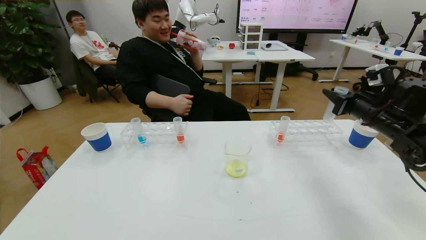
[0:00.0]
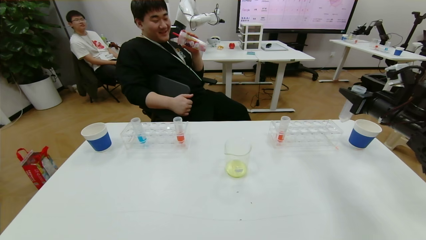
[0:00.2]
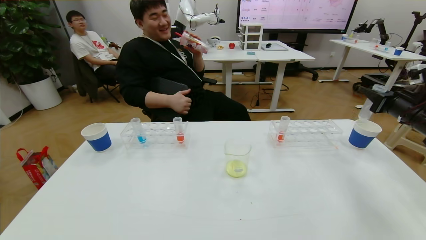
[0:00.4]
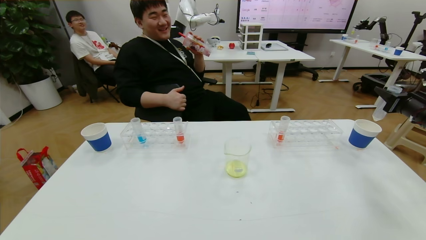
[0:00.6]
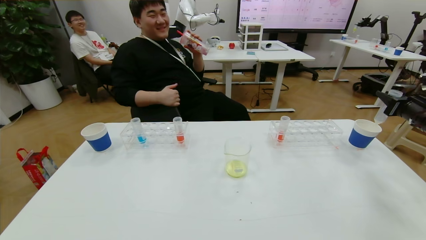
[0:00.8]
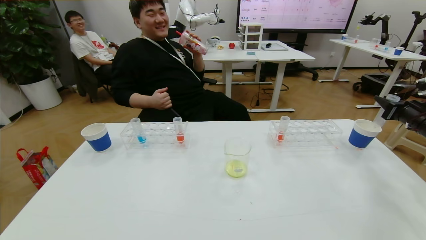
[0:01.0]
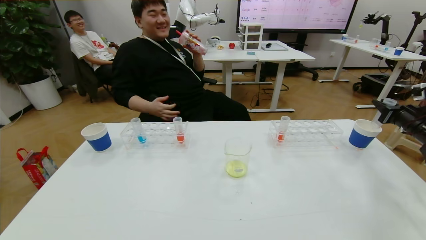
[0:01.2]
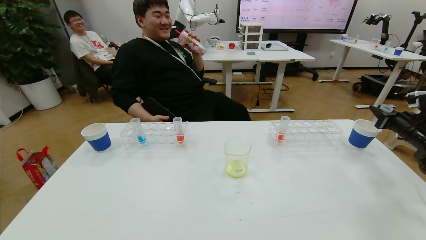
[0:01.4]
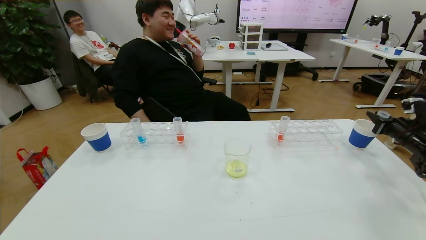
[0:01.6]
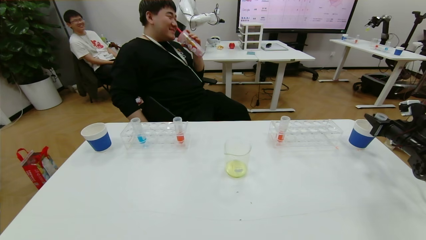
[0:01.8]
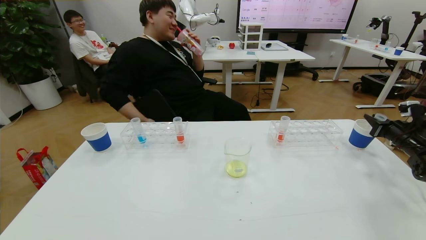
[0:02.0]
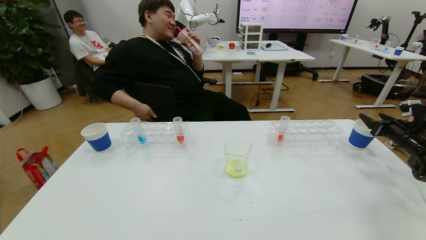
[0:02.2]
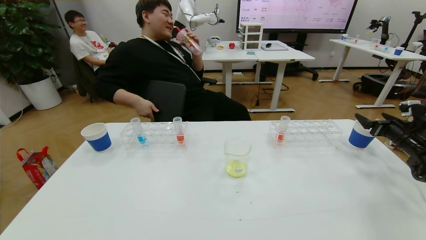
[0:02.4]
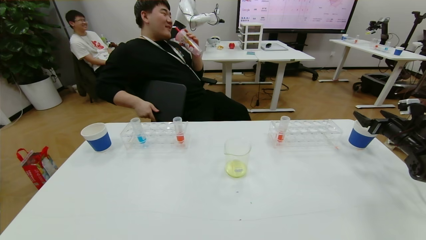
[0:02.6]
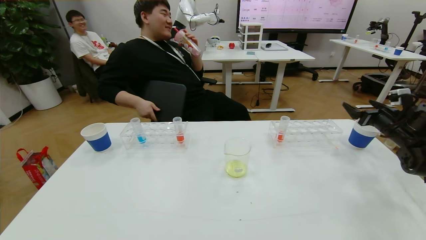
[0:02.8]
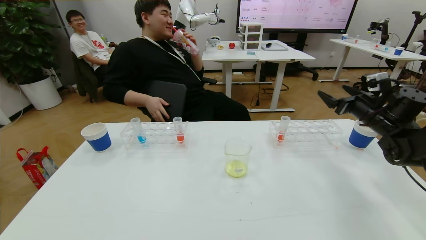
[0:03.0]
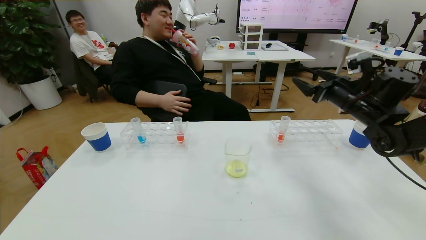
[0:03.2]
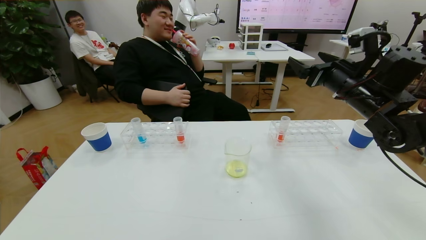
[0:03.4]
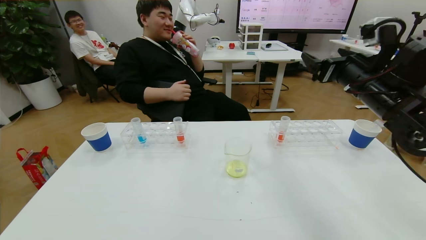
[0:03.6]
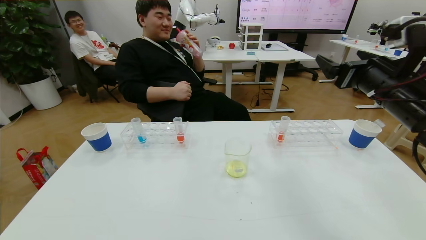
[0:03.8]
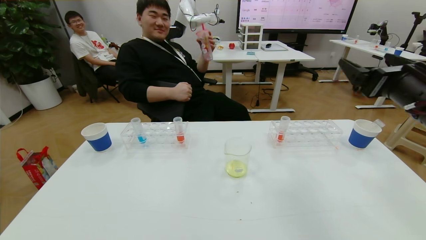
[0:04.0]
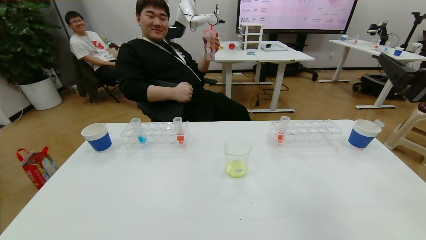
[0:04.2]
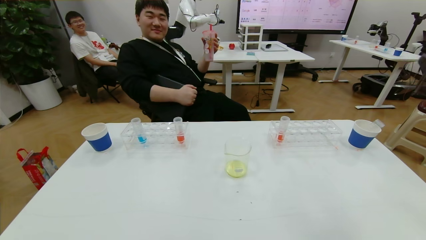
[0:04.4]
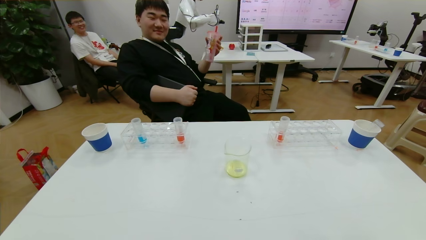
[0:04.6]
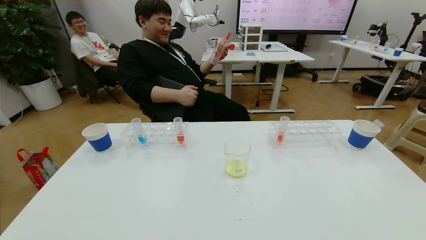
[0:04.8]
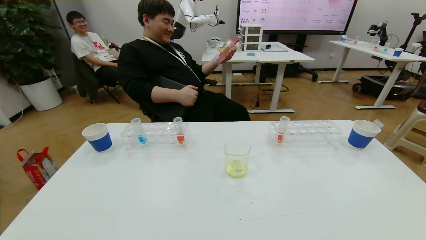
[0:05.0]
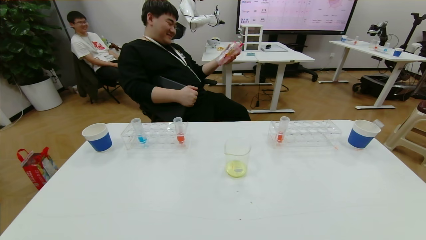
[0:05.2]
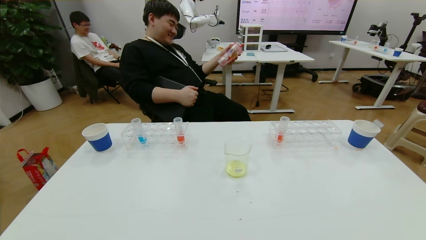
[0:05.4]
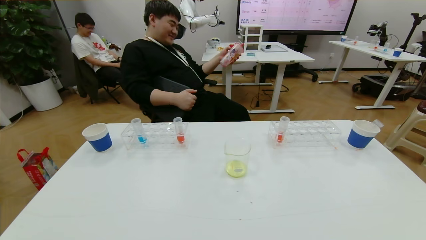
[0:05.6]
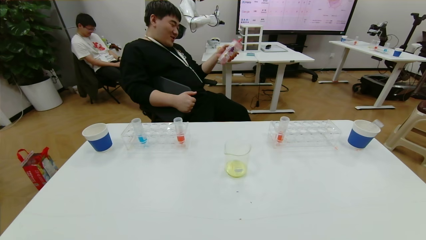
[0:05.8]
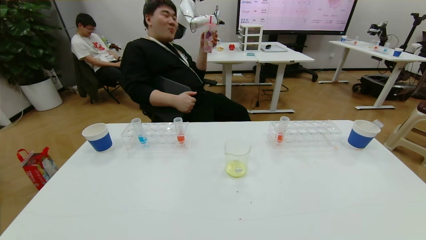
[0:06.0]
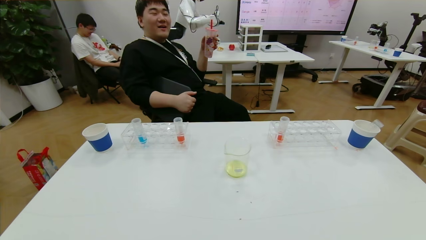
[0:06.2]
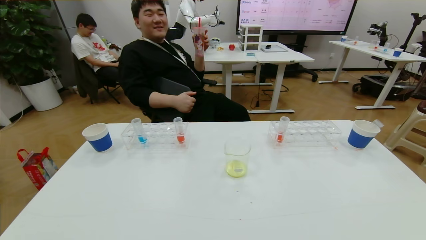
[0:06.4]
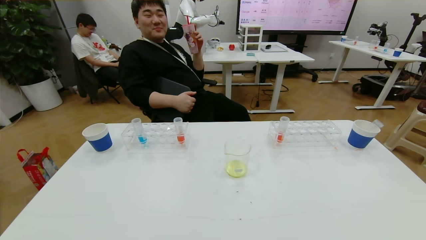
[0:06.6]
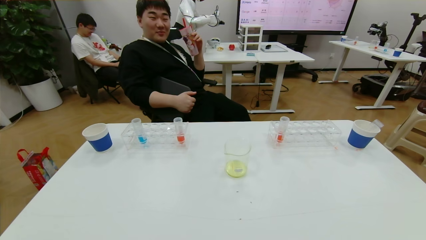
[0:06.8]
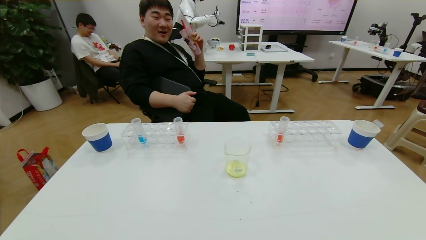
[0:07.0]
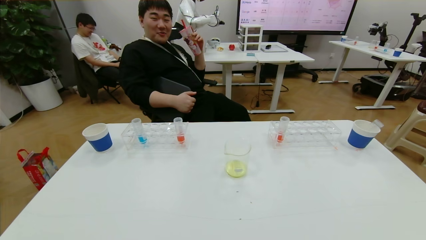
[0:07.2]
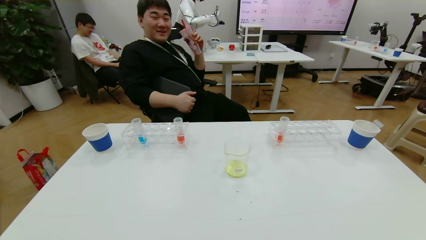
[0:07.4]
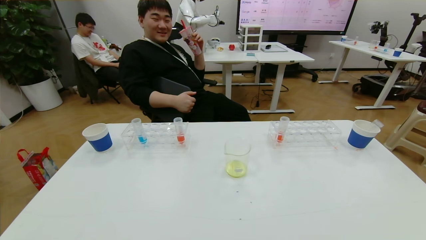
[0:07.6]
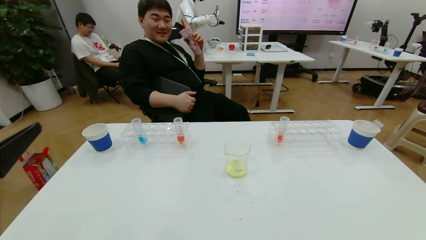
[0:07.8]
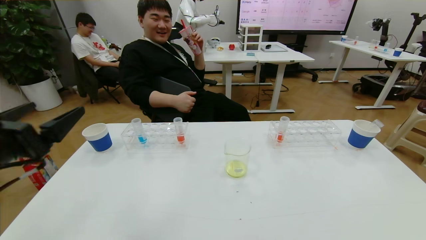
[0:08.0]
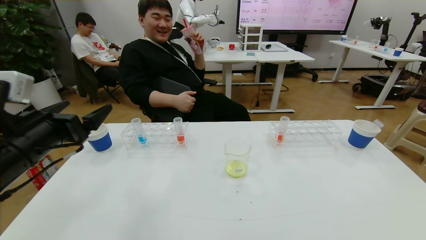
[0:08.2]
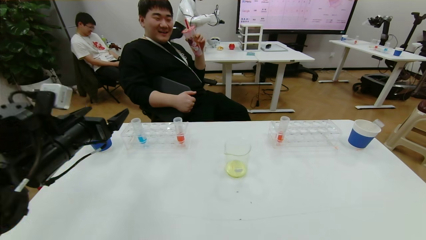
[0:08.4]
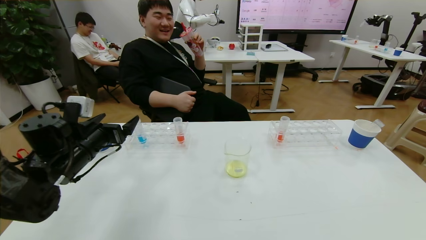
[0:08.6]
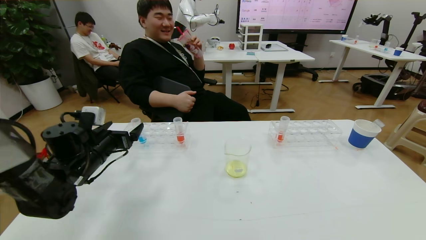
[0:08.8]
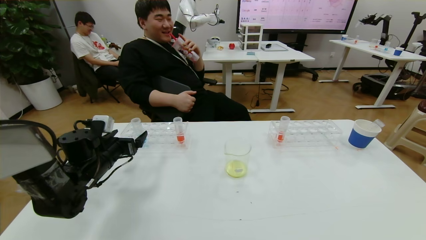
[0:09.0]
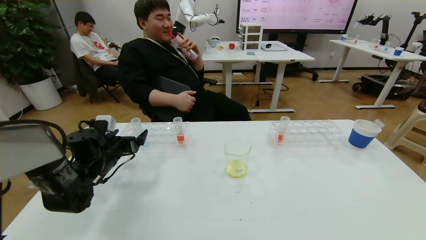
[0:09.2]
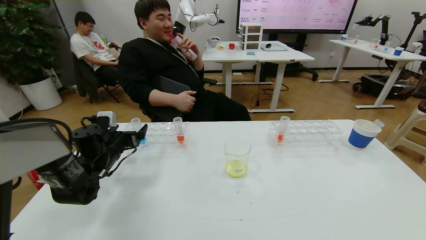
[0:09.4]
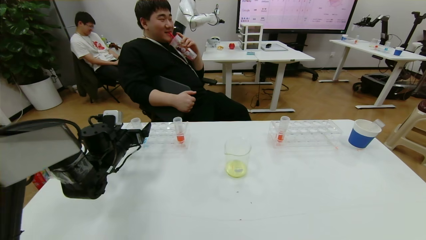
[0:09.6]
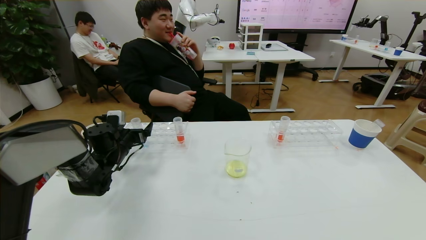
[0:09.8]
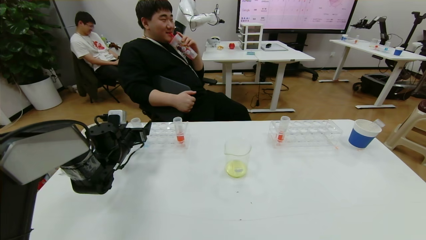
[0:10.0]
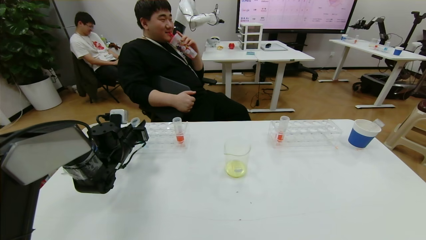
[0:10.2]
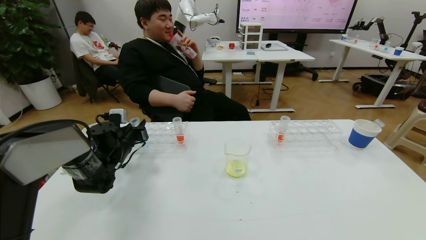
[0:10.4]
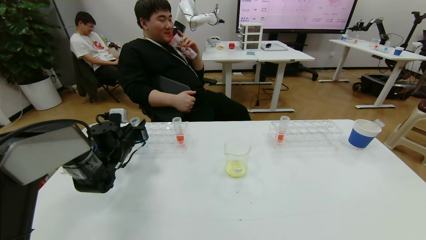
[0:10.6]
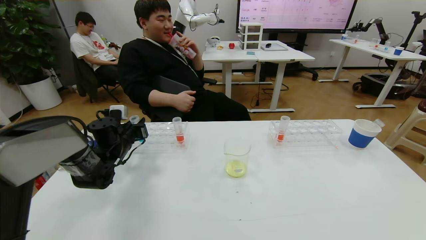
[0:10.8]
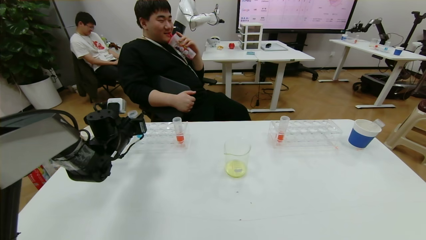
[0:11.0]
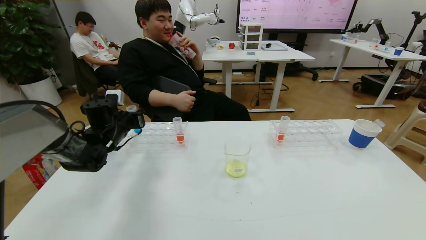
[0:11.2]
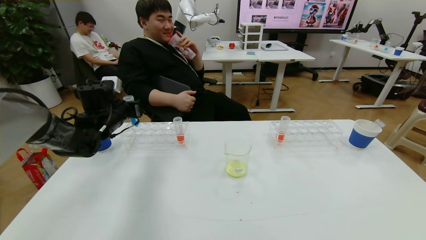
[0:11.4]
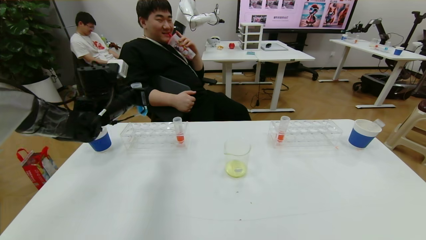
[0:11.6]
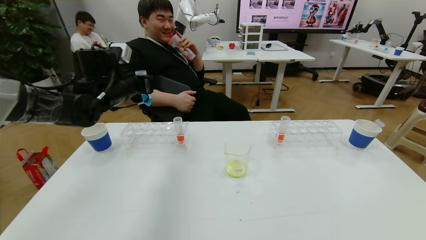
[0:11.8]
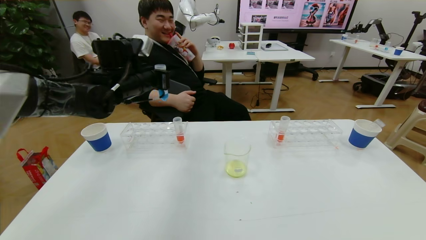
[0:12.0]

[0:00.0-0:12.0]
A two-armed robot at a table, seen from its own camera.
Task of the whole recording: pick up the test tube with yellow pigment and the test tube with blue pigment by grippers and pour them into the beaker.
Step, 0:00.0 to 0:05.2: Pour the yellow reagent into the graduated cylinder and place the test tube into the paper cup.
0:00.0 to 0:01.6: The right gripper shifts some 20 cm to the right and downward.
0:01.6 to 0:03.0: The right gripper is displaced to the left and upward by approximately 15 cm, and opens.
0:03.0 to 0:04.4: The right gripper moves backward and upward, some 30 cm.
0:04.4 to 0:06.0: The right gripper travels downward and backward by some 25 cm.
0:06.0 to 0:07.6: The left gripper goes approximately 15 cm upward.
0:07.6 to 0:09.0: The left gripper goes some 35 cm forward and downward.
0:09.0 to 0:10.4: The left gripper shifts about 5 cm forward, and closes its fingers.
0:10.4 to 0:12.0: The left gripper travels upward and to the right by approximately 20 cm.

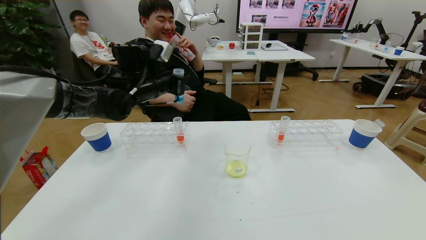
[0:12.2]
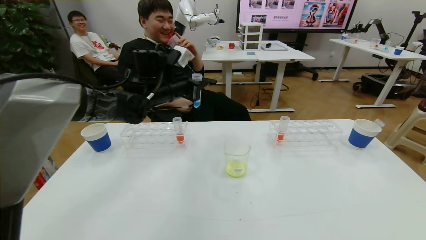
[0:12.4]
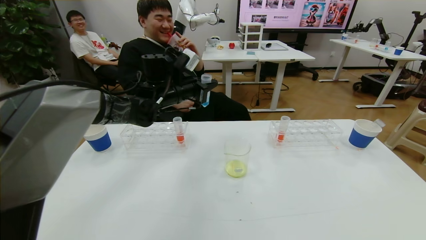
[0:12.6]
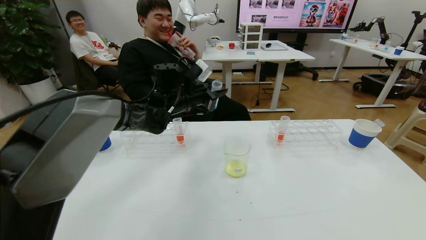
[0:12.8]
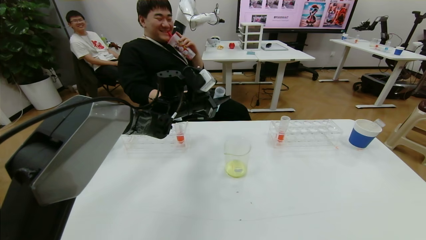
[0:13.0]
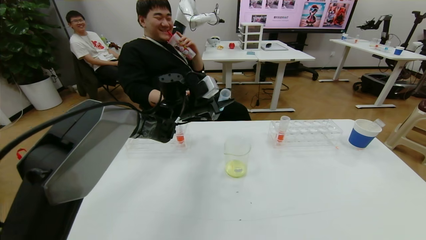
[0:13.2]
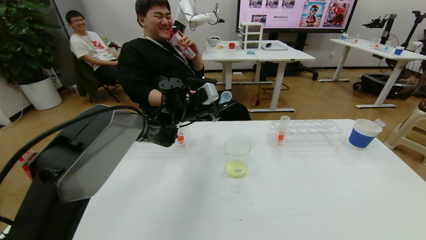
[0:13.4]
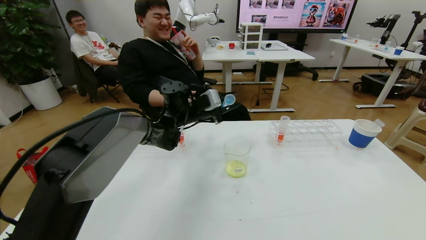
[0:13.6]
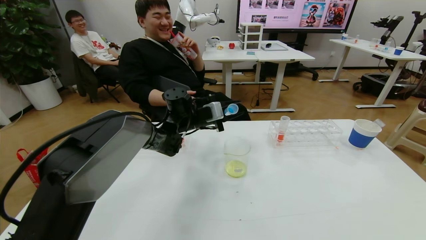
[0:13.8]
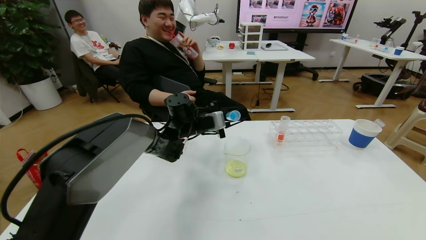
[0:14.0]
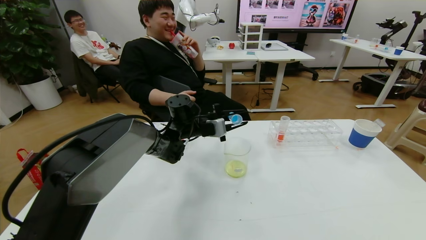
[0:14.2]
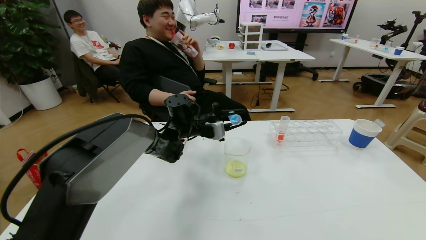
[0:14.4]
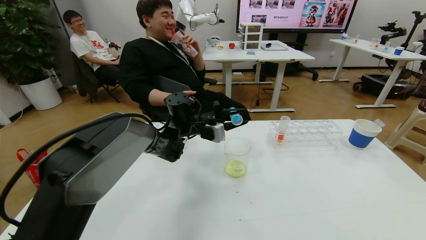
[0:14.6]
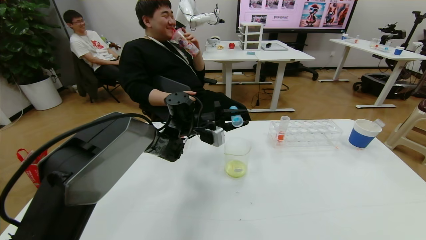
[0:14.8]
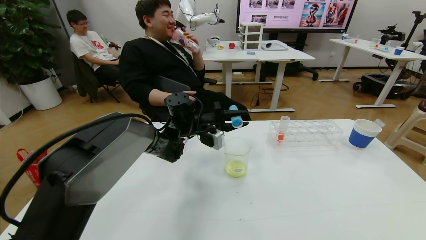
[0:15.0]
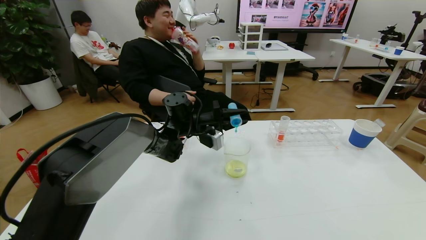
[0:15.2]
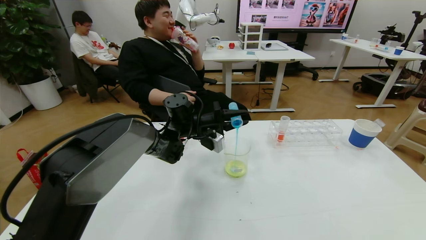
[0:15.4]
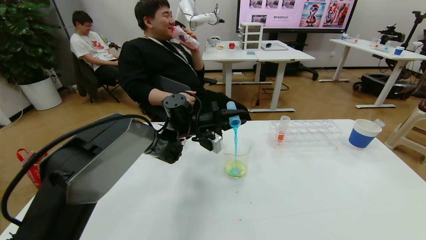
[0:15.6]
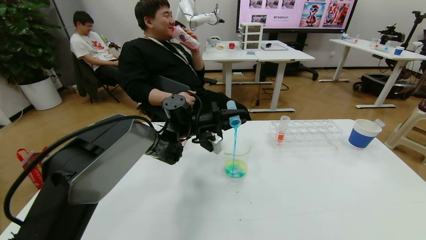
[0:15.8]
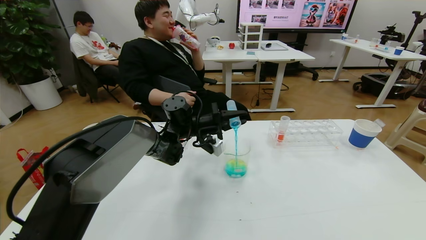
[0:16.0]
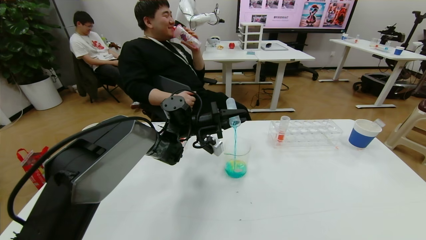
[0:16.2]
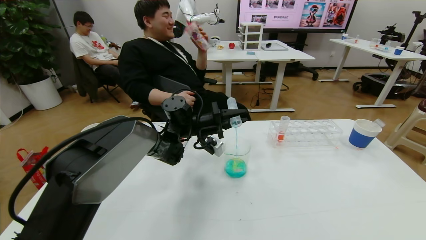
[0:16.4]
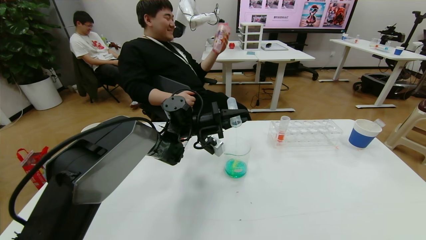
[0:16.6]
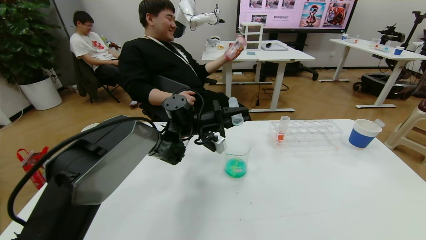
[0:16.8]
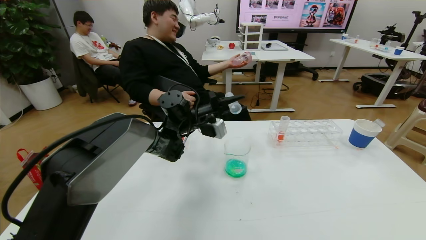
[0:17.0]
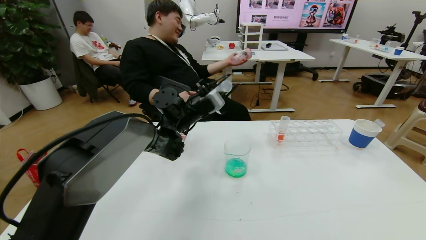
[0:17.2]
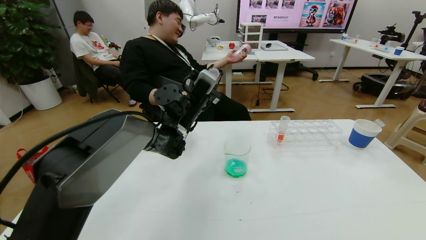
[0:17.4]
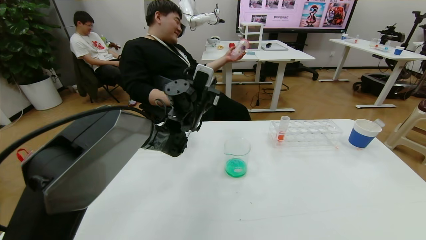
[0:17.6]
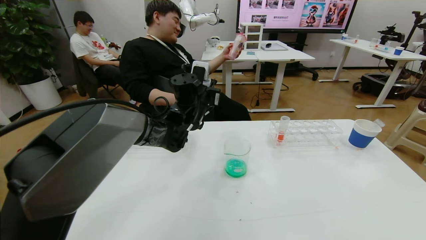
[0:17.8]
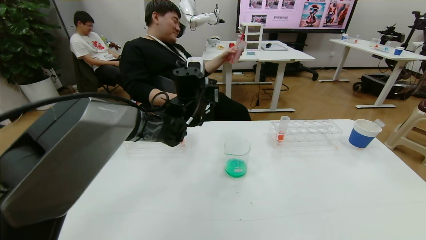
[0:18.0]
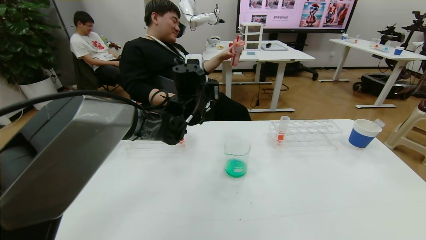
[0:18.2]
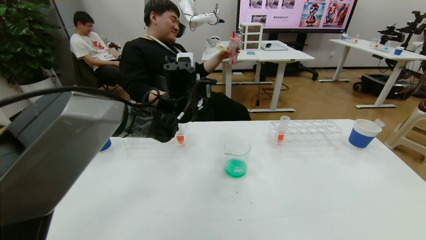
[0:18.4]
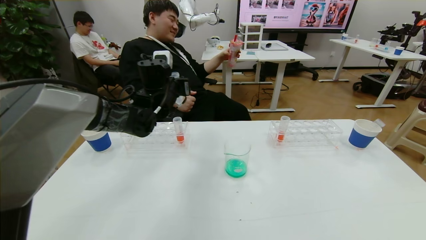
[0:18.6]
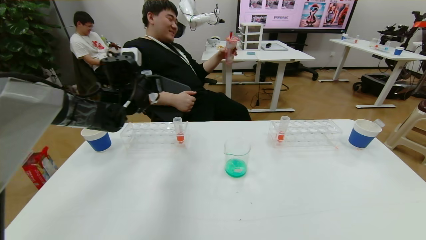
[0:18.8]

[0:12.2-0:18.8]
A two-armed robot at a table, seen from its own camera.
Task of the whole recording: pick up the test tube with yellow pigment and the test tube with blue pigment by grippers and pour them into the beaker.
0:12.2 to 0:13.8: The left gripper moves downward and to the right, roughly 15 cm.
0:17.2 to 0:18.8: The left gripper goes roughly 15 cm to the left.
